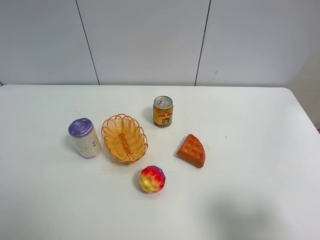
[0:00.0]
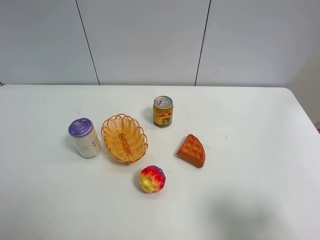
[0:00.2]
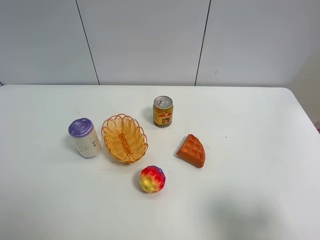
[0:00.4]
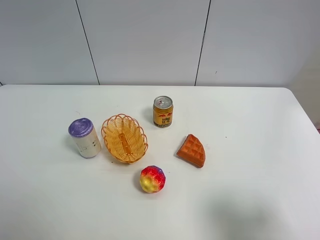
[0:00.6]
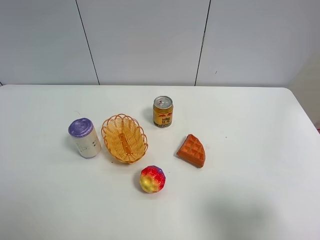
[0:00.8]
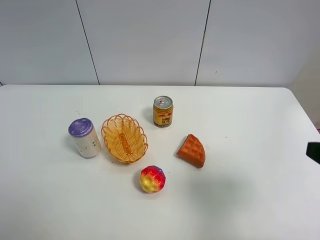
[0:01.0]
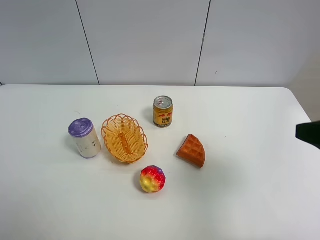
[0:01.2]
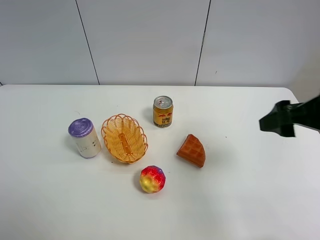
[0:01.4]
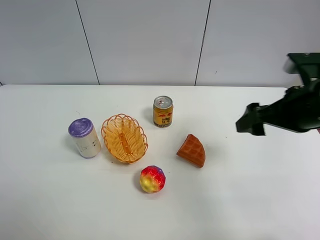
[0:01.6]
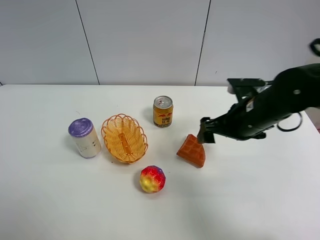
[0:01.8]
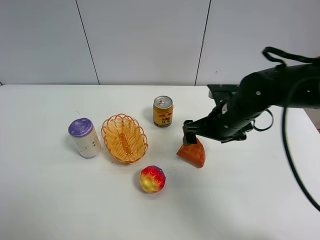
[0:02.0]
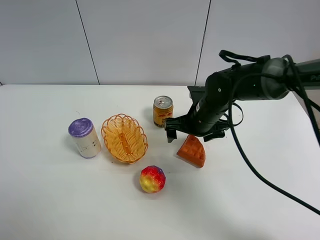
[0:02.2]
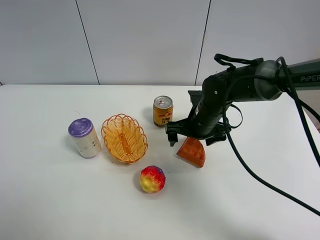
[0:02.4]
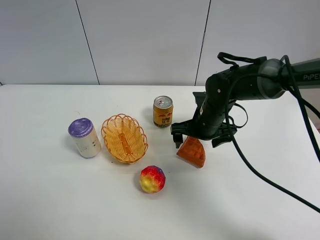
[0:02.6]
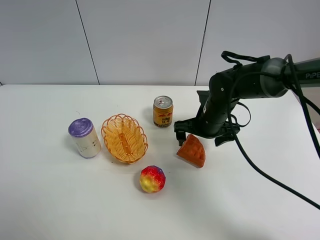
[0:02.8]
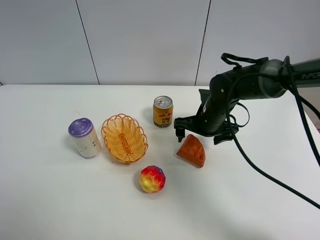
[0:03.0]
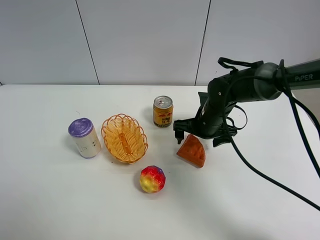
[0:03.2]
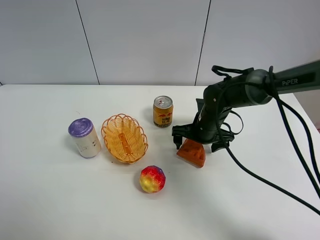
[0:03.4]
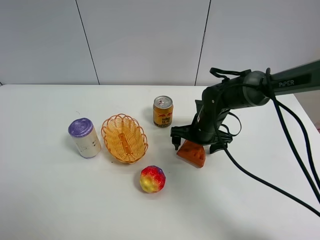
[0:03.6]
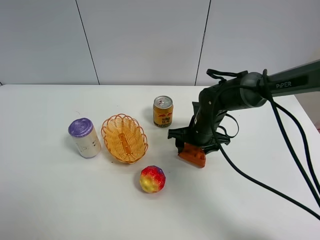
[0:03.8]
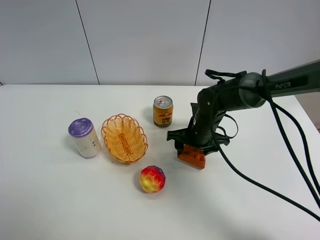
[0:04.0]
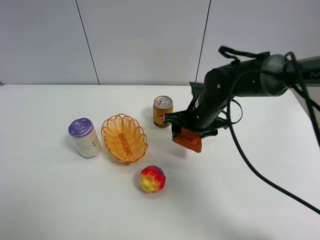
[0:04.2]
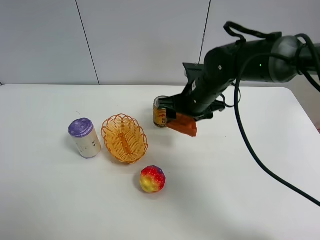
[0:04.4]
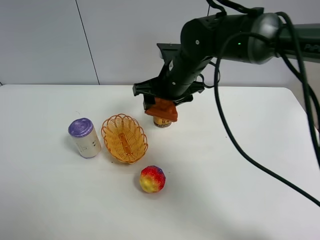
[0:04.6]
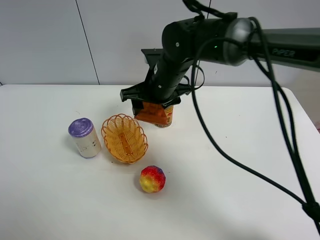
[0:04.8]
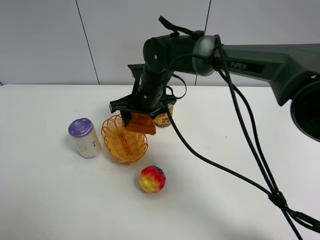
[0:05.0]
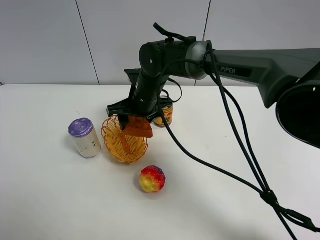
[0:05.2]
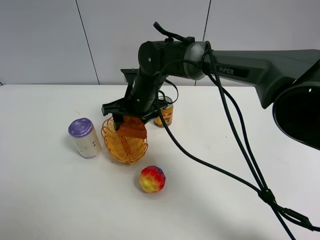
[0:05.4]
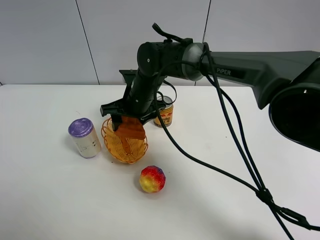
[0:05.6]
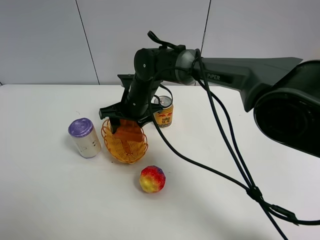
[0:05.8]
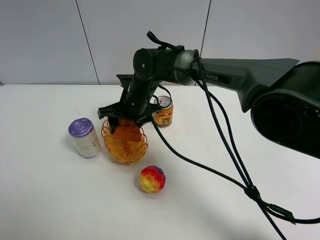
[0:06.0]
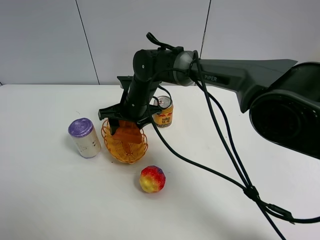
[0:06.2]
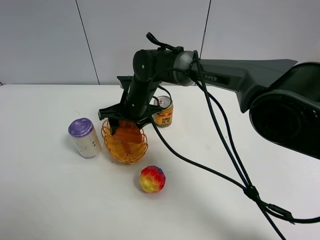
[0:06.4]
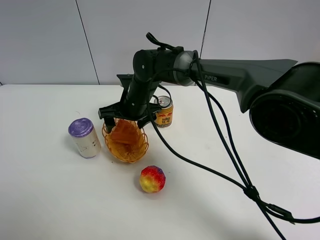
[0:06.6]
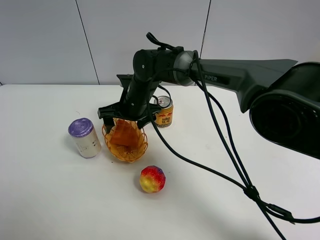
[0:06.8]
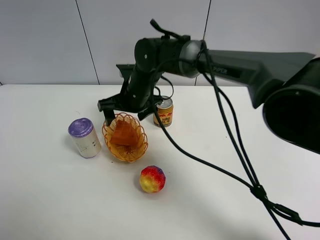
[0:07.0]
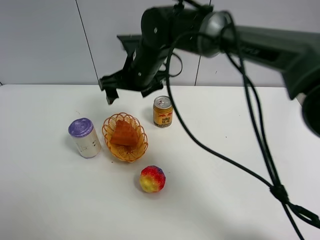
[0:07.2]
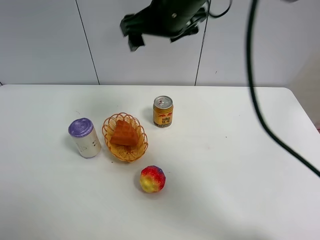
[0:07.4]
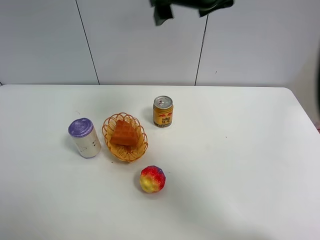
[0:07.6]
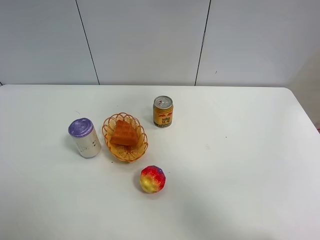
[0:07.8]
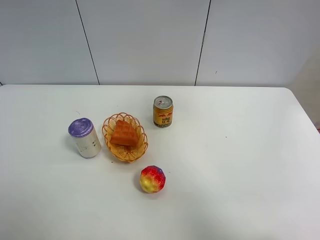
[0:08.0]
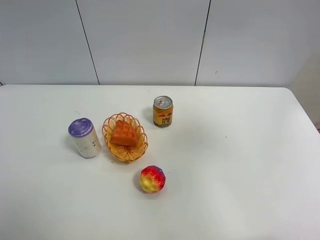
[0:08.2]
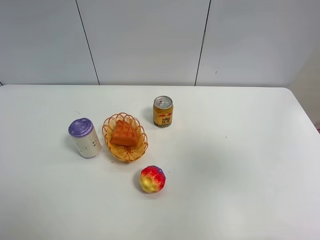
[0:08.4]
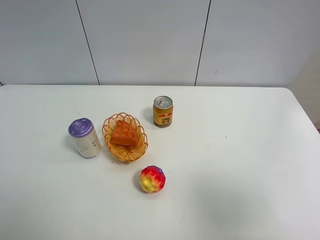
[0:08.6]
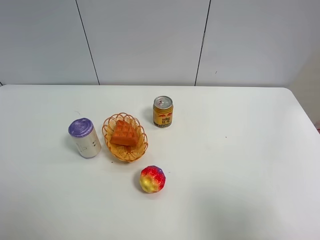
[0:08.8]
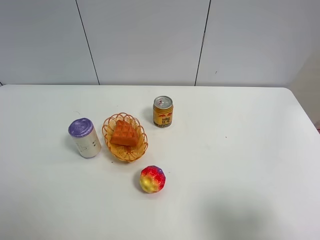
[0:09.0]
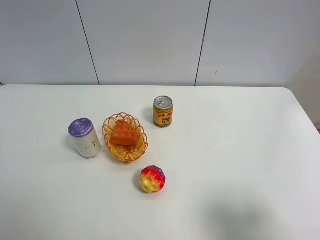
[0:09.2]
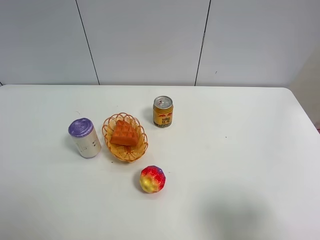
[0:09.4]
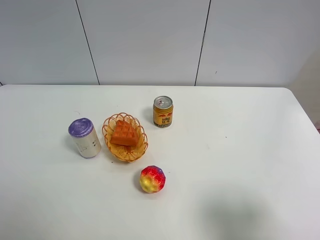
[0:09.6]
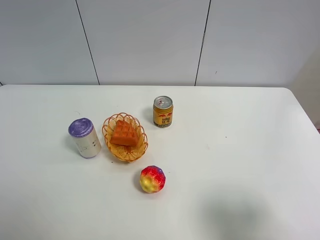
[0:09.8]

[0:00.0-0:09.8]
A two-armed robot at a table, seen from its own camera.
Task of the whole recording: Put the bakery in the basket.
Step, 0:00.0 to 0:03.8: Grasp the bread with right gripper.
Step, 0:04.0 to 0:06.8: Place the bread in the basket with right gripper.
0:00.0 to 0:01.4: The right gripper goes about 20 cm forward.
0:01.4 to 0:02.8: The right gripper is displaced downward, forward and to the left by about 25 cm.
0:02.8 to 0:04.2: The right gripper closes.
0:04.2 to 0:05.6: The right gripper moves to the left, some 15 cm.
0:05.6 to 0:07.0: The right gripper opens.
0:07.0 to 0:08.4: The right gripper is displaced to the right, backward and upward by about 50 cm.
0:08.4 to 0:09.8: The right gripper travels downward by roughly 15 cm.

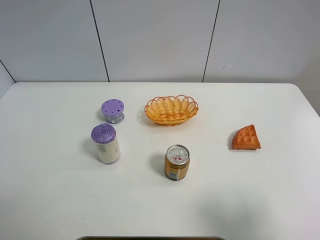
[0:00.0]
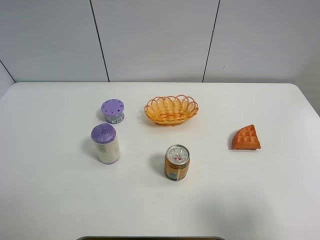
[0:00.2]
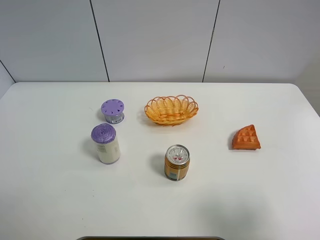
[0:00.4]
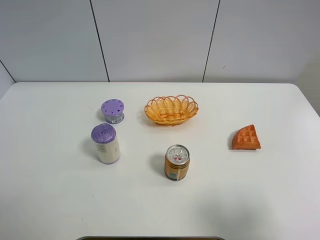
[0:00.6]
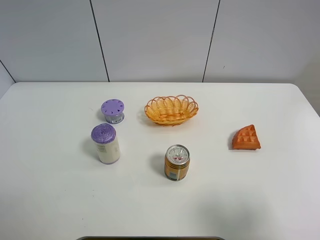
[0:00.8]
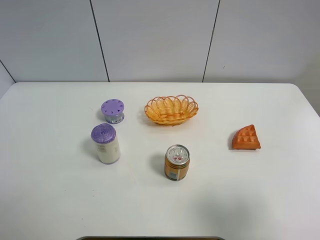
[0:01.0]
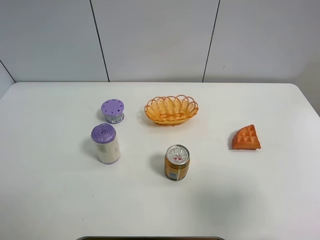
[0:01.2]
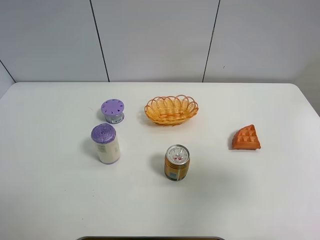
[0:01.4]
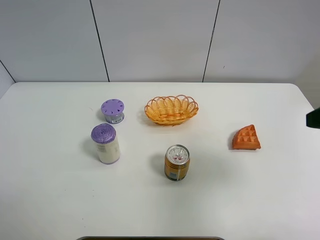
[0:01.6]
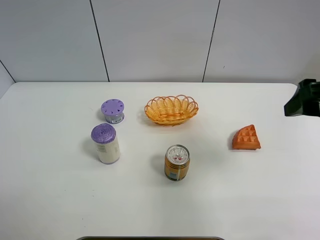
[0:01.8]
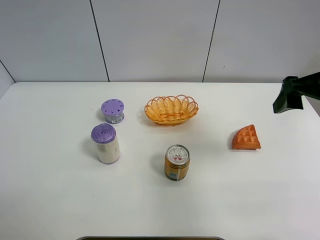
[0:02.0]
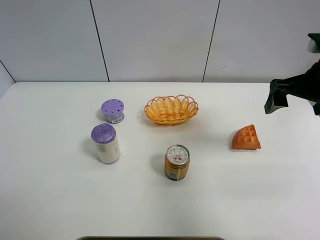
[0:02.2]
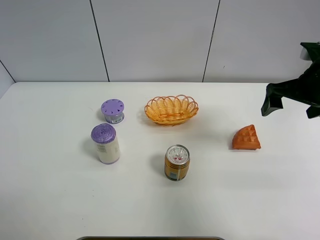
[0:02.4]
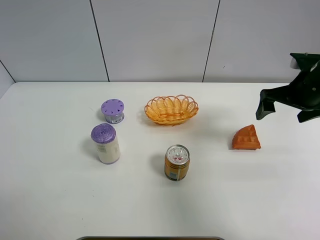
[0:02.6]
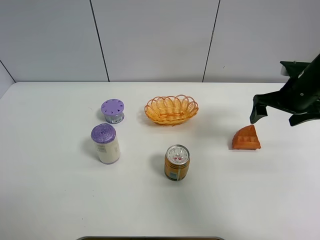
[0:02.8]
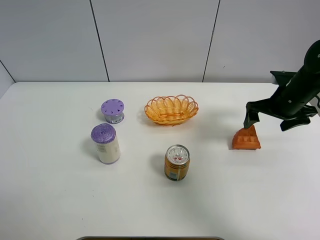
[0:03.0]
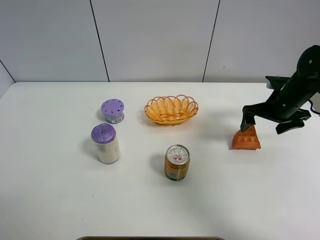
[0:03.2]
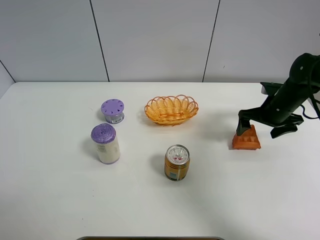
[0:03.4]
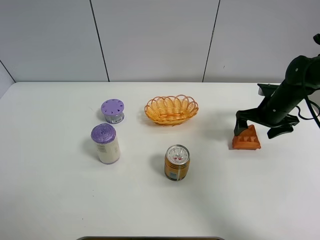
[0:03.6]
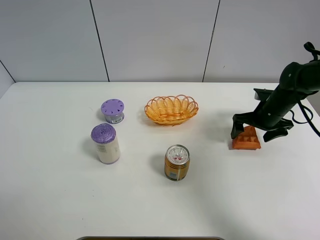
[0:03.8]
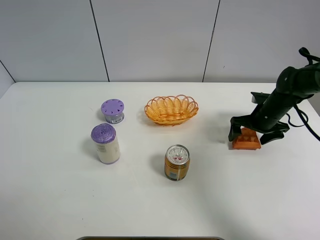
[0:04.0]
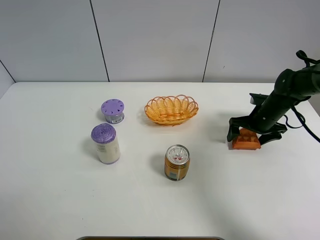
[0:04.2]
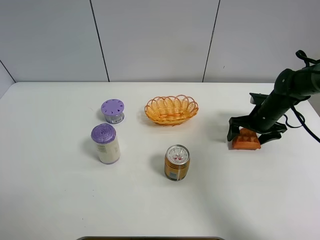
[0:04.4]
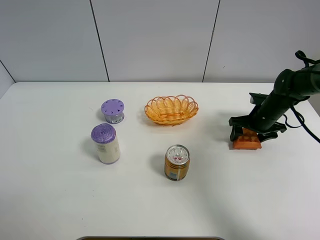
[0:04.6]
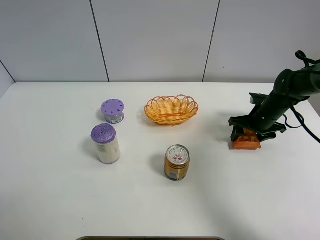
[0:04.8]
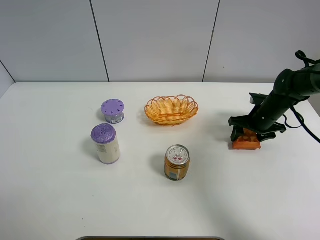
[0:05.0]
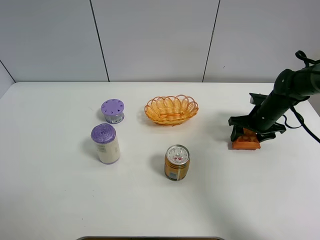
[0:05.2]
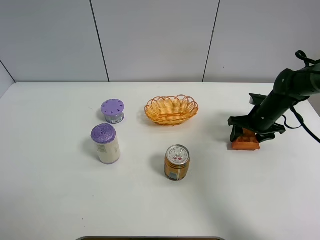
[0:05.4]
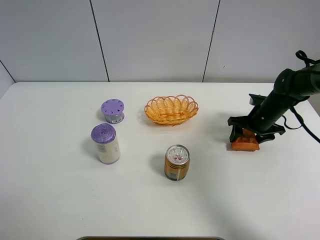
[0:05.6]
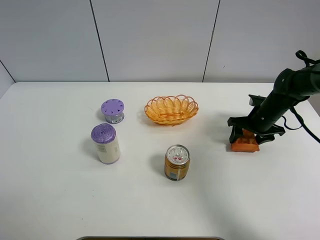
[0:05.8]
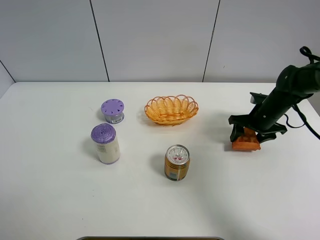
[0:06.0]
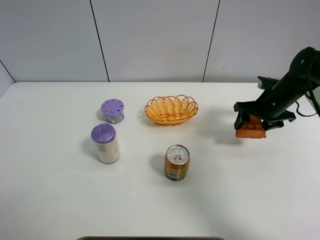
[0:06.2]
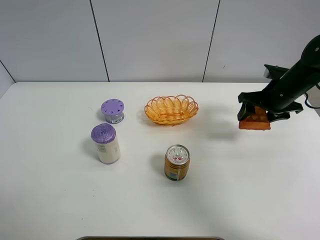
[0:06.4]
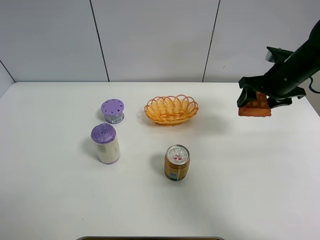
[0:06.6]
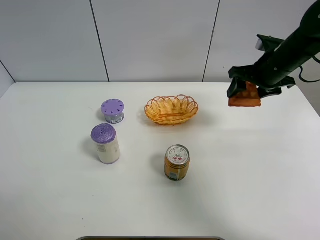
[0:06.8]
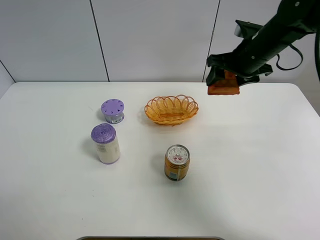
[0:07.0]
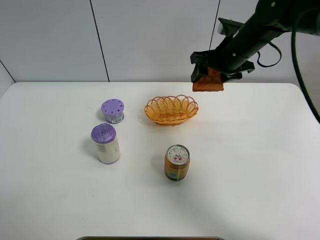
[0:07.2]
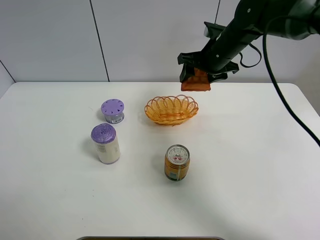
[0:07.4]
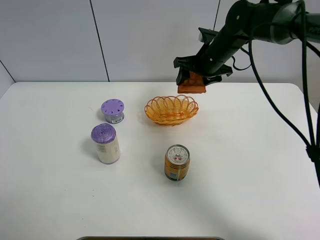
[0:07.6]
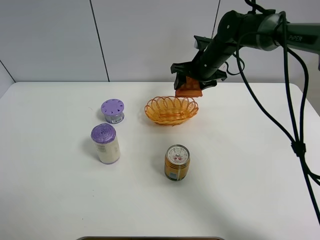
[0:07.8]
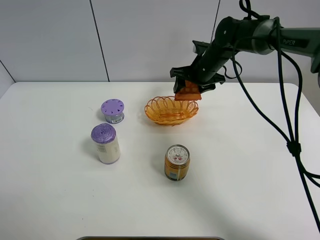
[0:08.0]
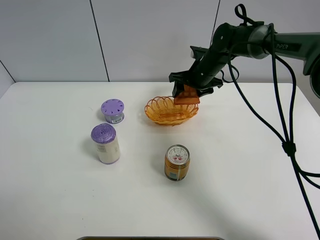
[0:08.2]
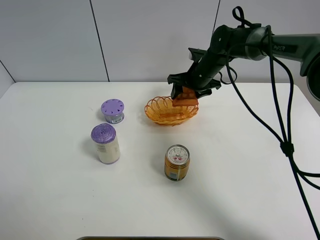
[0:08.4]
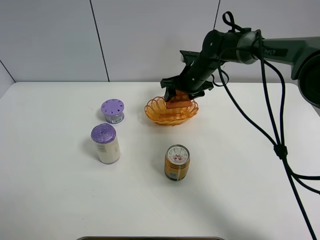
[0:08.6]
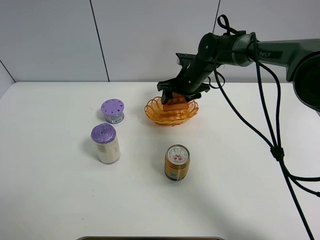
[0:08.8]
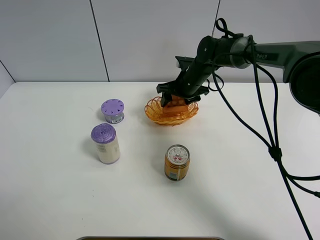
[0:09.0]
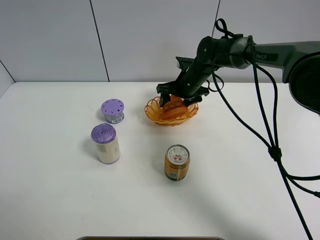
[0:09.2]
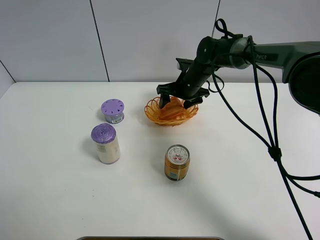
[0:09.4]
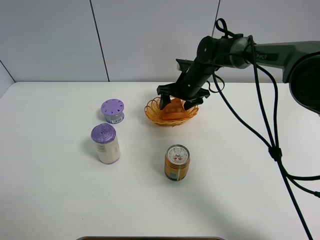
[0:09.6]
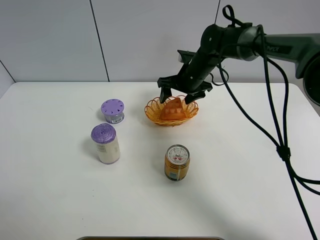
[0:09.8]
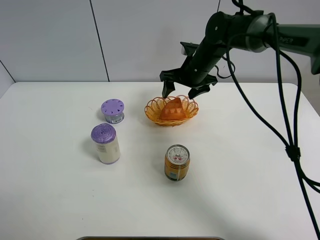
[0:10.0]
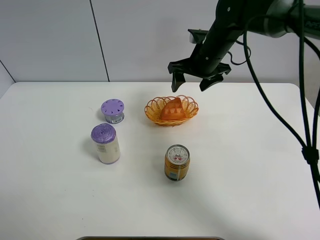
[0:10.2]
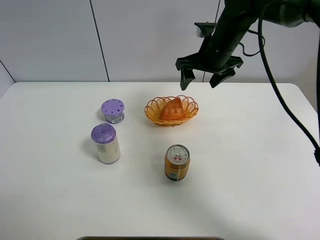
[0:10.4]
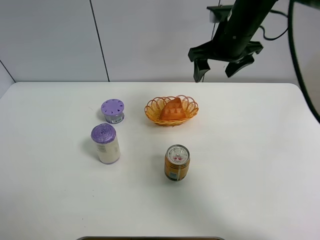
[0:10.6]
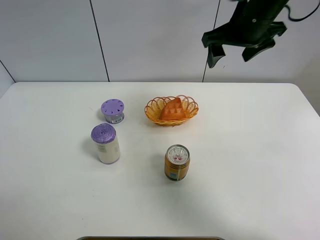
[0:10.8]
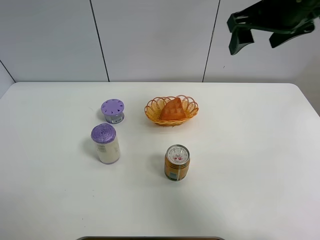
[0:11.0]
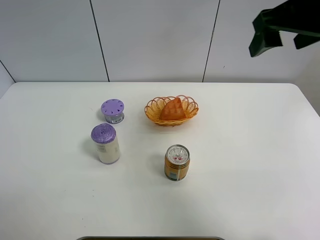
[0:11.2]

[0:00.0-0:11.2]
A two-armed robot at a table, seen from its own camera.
Task of the whole recording: Put the bakery in the basket.
Step, 0:00.0 to 0:04.8: Grasp the bread with right gripper.
Step, 0:05.0 to 0:10.0: Place the bread in the basket with right gripper.
0:00.0 to 0:01.6: The right gripper shifts roughly 15 cm forward.
0:01.6 to 0:03.2: The right gripper travels forward and downward by approximately 25 cm.
0:03.2 to 0:04.8: The right gripper moves downward, roughly 10 cm, and closes.
0:04.8 to 0:06.4: The right gripper moves upward, roughly 10 cm.
0:06.4 to 0:08.0: The right gripper is displaced to the left and forward by about 20 cm.
0:08.0 to 0:09.6: The right gripper changes place by roughly 5 cm, and opens up.
0:09.6 to 0:11.2: The right gripper is displaced upward, backward and to the right by some 35 cm.

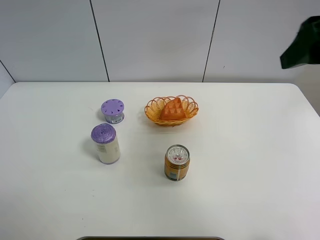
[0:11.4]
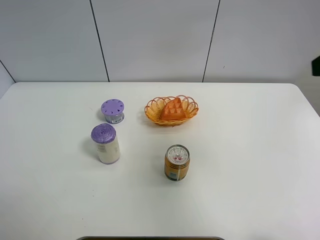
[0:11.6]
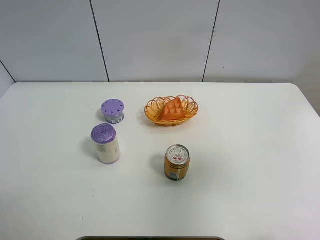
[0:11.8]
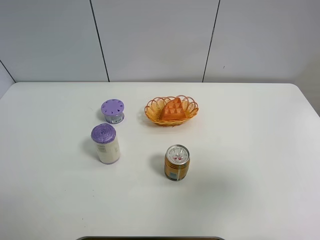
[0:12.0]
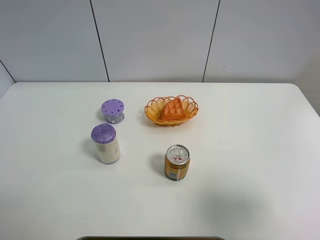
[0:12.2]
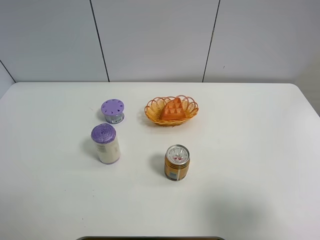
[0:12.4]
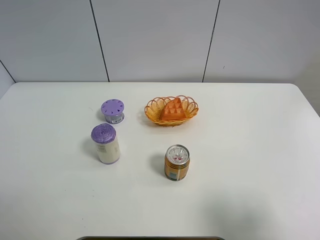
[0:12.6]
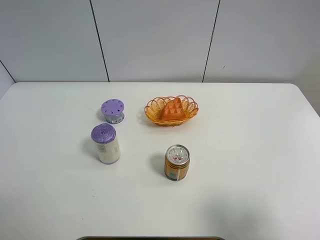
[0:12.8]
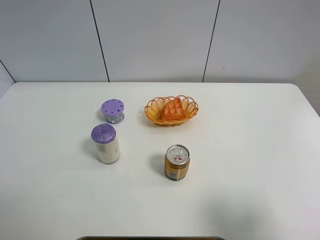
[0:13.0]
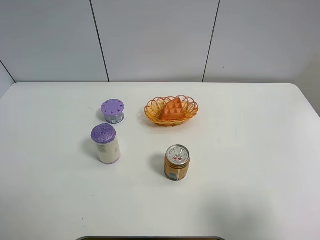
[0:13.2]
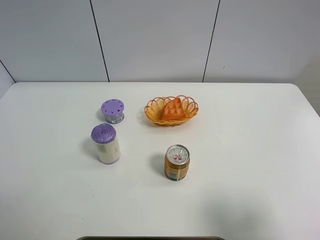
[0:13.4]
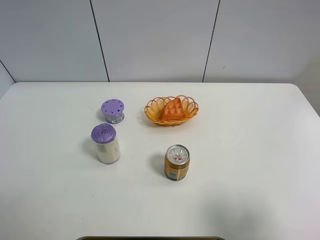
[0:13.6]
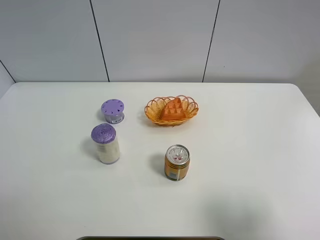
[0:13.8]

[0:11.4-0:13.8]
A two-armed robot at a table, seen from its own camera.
Task of the whole recording: Put the bakery in the basket.
0:11.4 to 0:12.6: The right gripper is displaced backward and downward by some 25 cm.
0:12.6 to 0:13.8: The two grippers keep their place.
